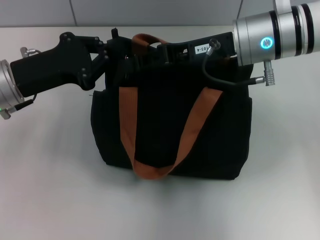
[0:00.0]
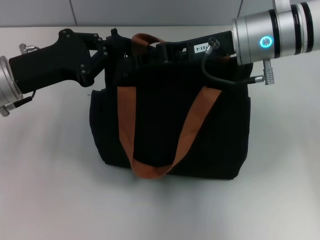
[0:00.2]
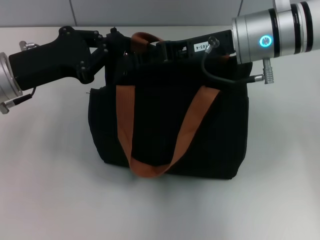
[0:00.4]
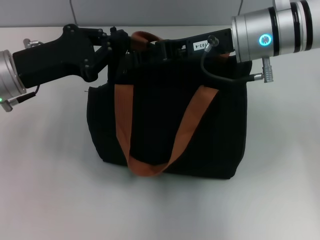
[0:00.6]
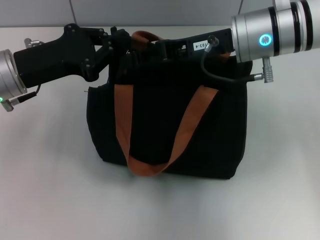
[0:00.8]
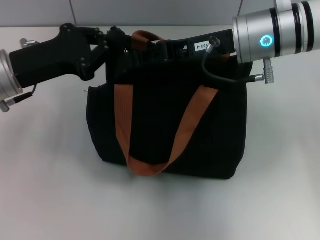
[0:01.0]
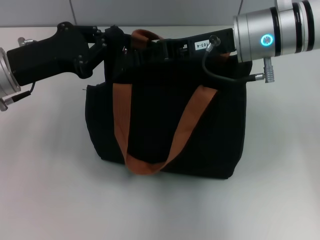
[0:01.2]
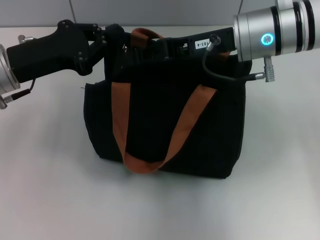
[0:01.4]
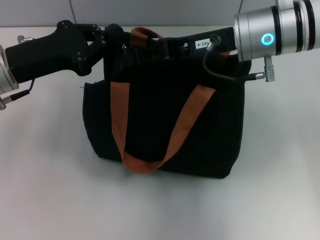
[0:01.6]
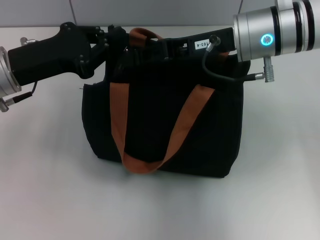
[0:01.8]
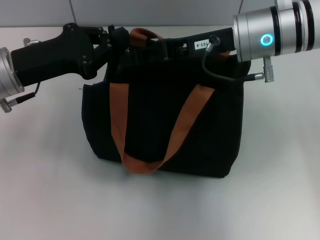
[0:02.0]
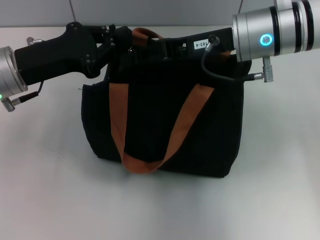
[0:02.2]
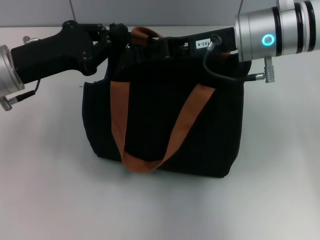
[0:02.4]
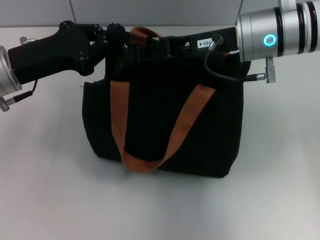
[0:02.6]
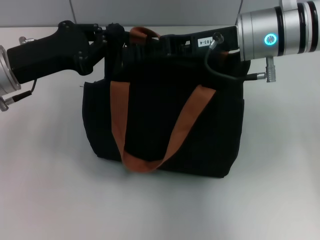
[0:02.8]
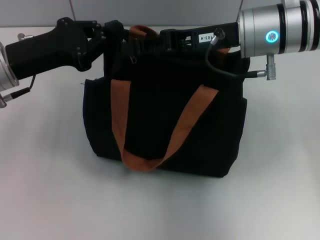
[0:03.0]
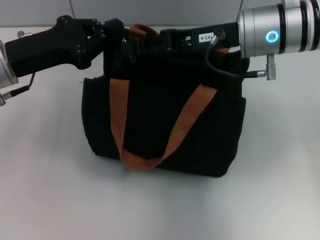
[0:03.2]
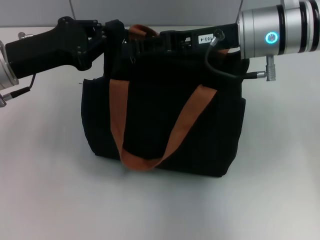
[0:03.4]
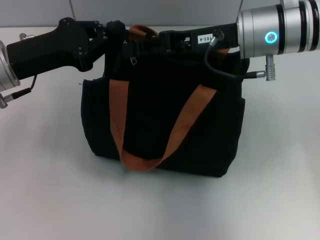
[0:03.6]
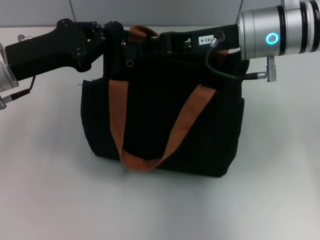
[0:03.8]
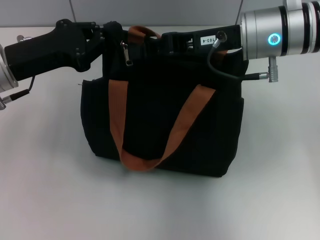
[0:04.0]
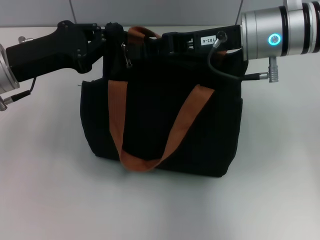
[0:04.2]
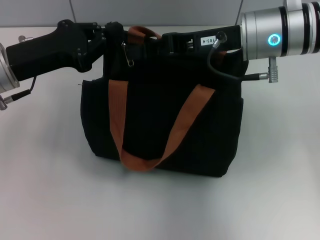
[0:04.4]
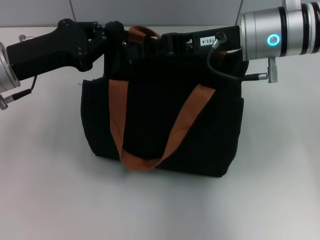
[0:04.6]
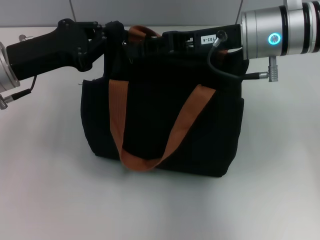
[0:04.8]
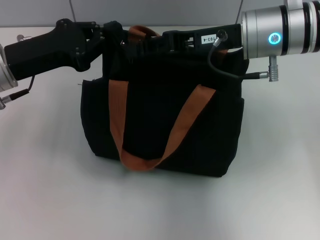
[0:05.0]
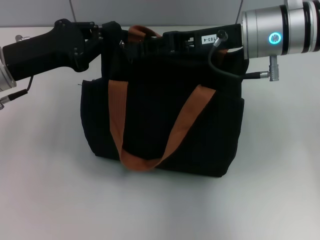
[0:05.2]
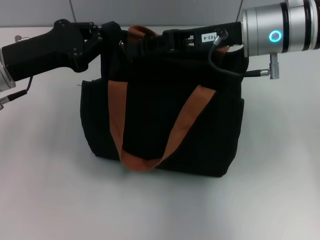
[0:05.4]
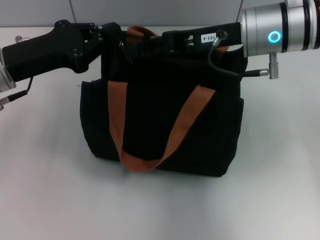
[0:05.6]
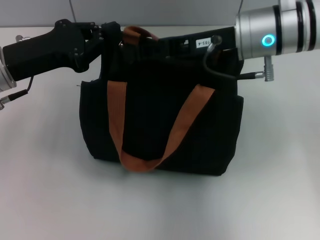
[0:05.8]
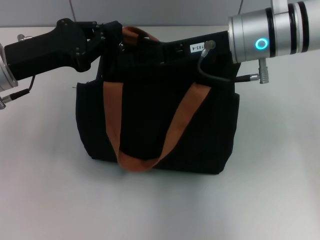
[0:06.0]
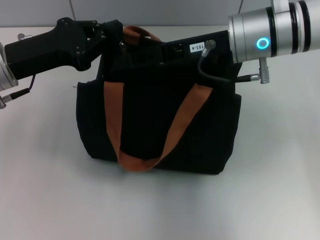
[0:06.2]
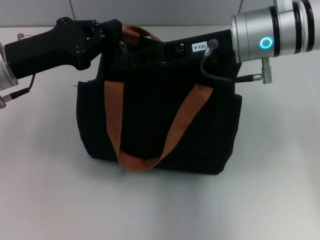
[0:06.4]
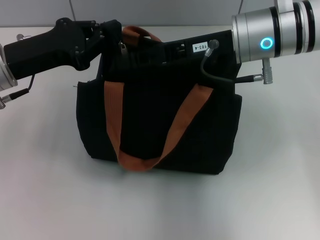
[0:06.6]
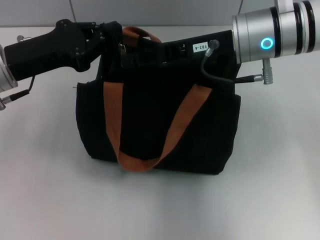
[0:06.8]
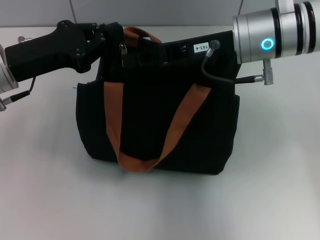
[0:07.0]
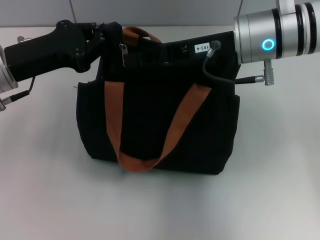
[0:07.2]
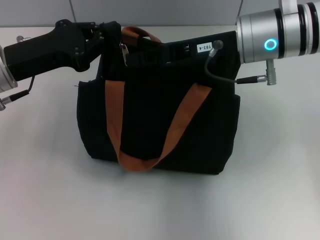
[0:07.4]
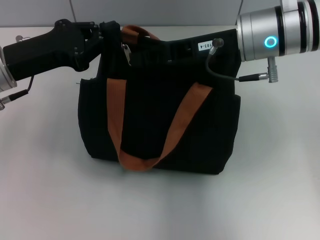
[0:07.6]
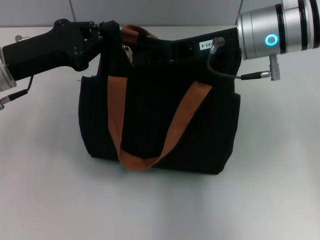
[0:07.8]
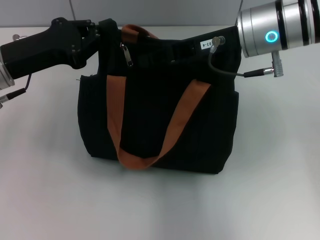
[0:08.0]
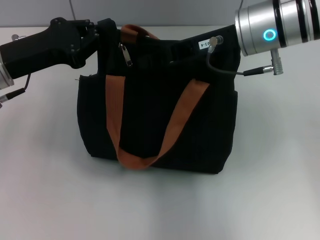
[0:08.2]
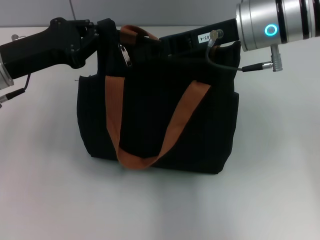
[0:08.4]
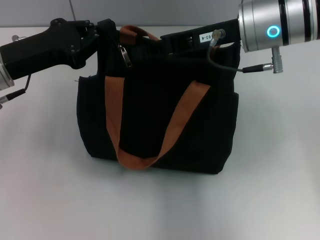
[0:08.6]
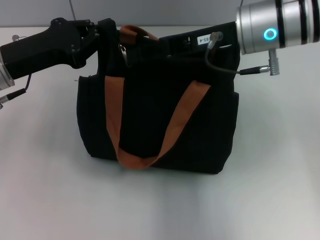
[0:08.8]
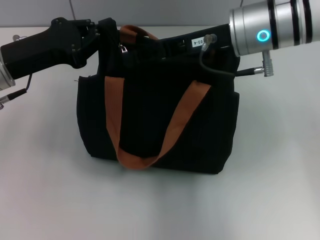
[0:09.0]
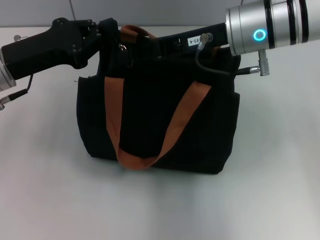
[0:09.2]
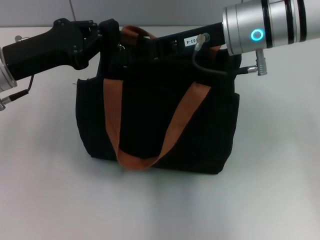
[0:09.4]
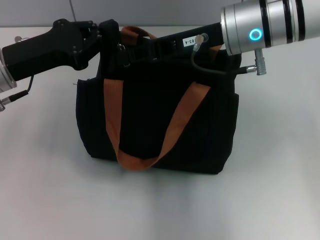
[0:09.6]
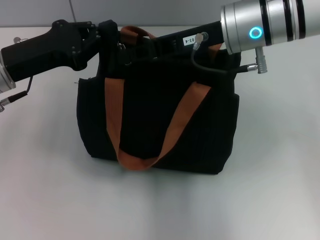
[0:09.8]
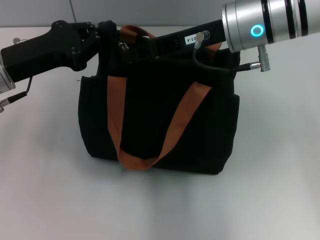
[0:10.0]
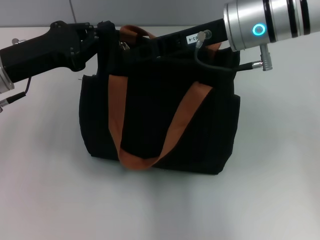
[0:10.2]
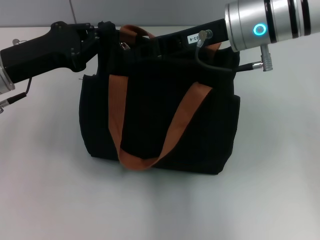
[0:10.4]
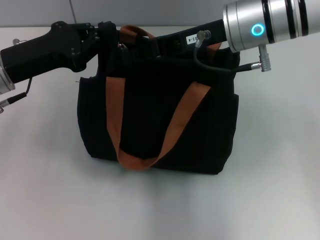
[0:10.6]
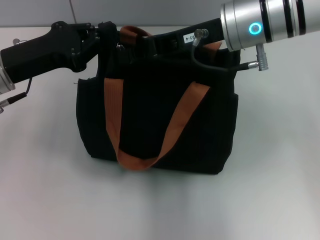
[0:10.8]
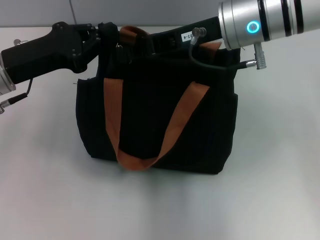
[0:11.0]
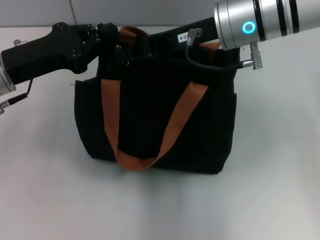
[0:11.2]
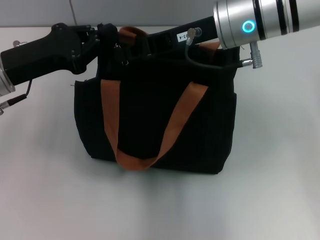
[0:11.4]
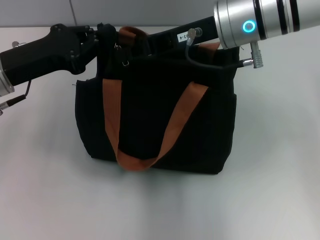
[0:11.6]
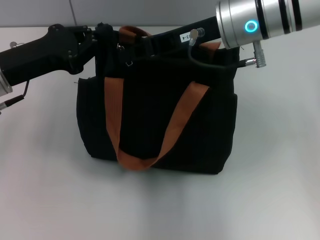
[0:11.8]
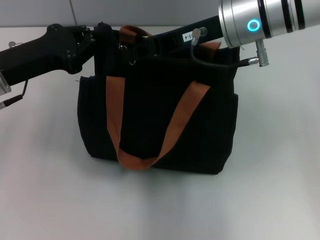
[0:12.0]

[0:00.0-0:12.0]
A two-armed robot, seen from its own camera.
0.0 to 1.6 s: The grippers move only a little.
1.6 to 4.4 s: The two grippers keep their place.
4.4 to 6.0 s: There are only small adjustments of the grippers.
6.0 to 7.6 s: Both grippers stay about where they are.
7.6 to 10.4 s: The grippers stay close to where they were, moving slightly.
10.4 to 12.0 s: Both grippers stay put.

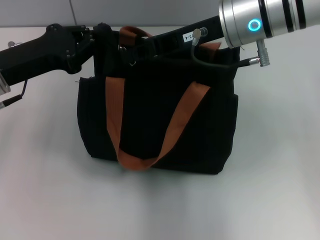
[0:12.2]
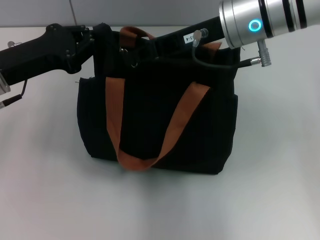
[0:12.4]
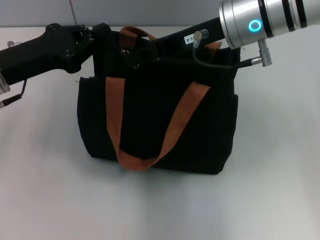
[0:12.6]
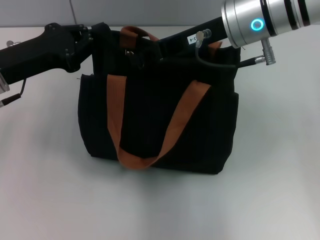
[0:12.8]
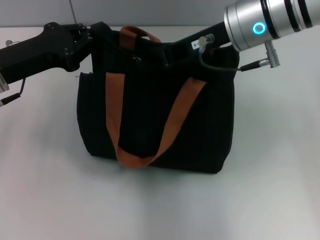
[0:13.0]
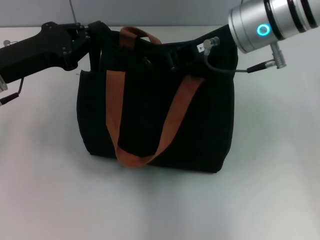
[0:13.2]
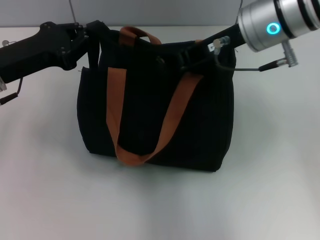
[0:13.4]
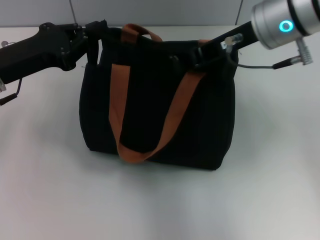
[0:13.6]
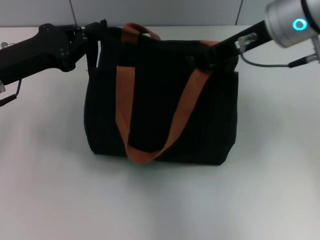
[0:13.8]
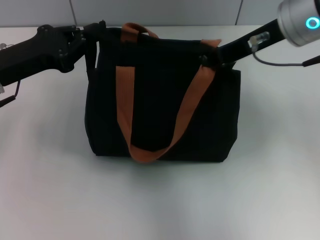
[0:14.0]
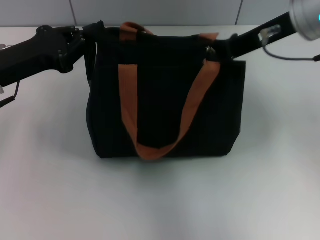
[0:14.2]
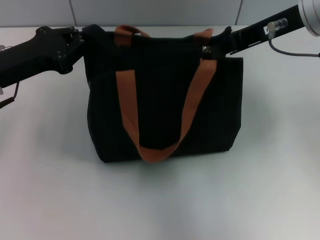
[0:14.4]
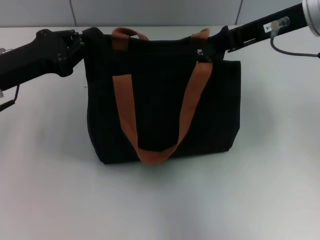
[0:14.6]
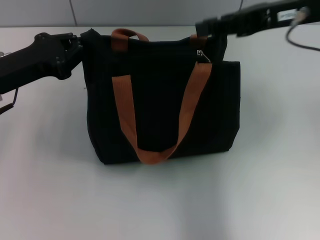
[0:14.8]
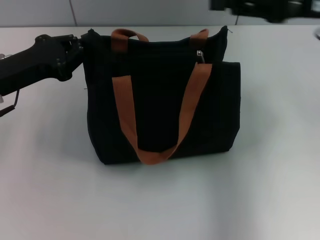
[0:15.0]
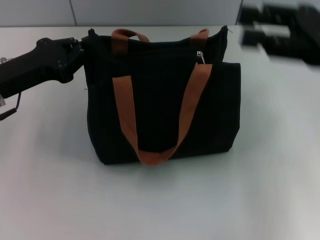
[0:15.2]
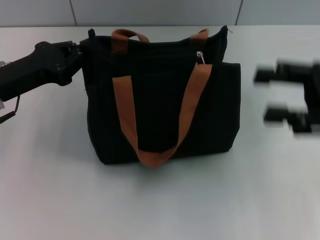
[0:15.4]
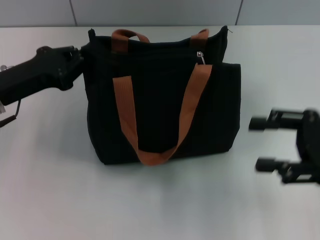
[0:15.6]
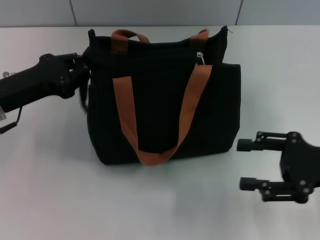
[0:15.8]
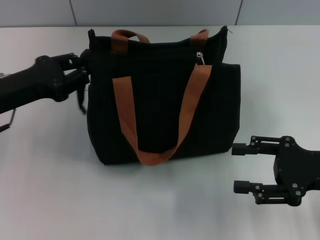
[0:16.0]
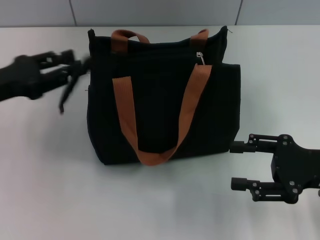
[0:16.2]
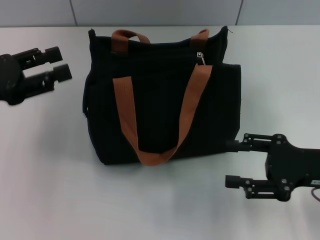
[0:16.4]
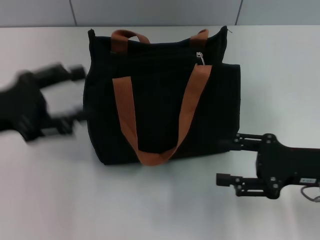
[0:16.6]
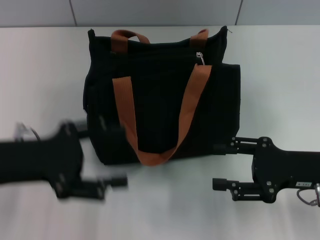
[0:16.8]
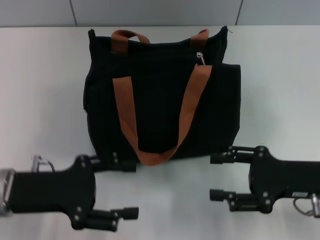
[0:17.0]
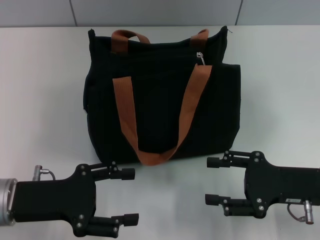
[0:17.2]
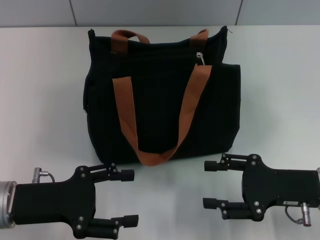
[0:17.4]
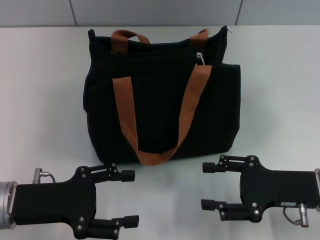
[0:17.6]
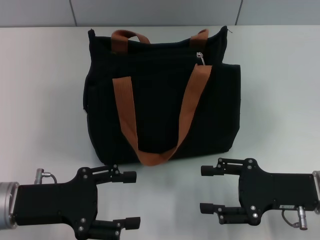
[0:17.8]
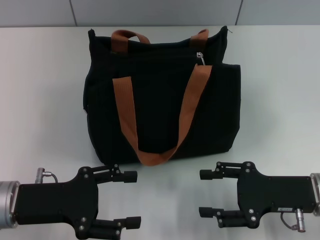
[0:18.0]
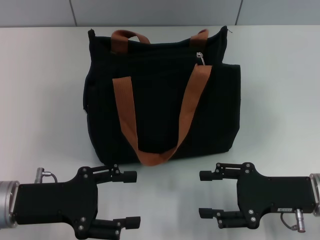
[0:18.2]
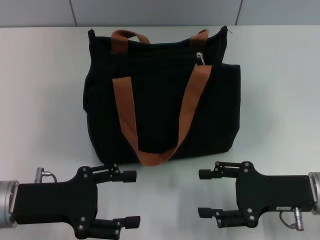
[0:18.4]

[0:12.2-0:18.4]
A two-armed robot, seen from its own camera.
Step, 12.2 to 14.6 s: Pull up the zipper with your right hand.
Step, 14.8 to 16.2 s: Grab the zipper with your left hand.
12.2 to 13.8 s: The right gripper moves approximately 5 cm.
13.8 to 15.4 s: The right gripper is displaced to the right, backward and downward by roughly 20 cm, and opens its fingers.
15.4 to 16.8 s: The left gripper is displaced backward by roughly 5 cm, and opens. The right gripper is displaced downward by approximately 10 cm.
16.8 to 18.4 s: The left gripper moves approximately 5 cm.

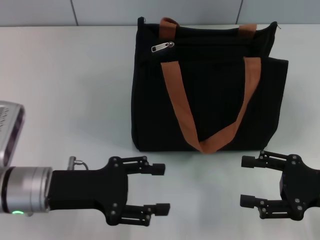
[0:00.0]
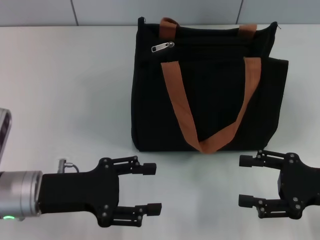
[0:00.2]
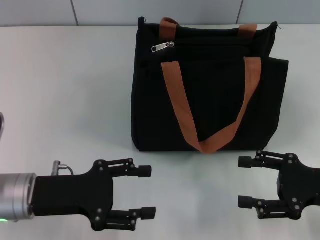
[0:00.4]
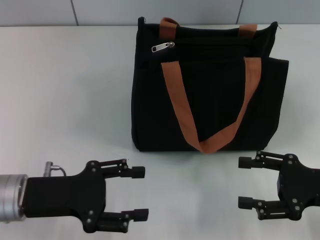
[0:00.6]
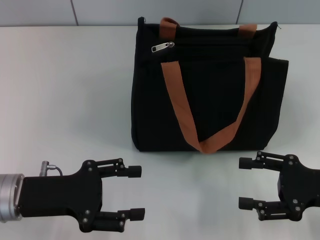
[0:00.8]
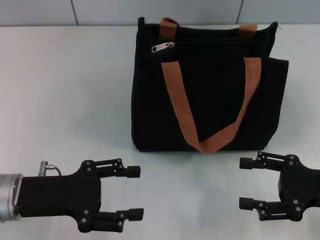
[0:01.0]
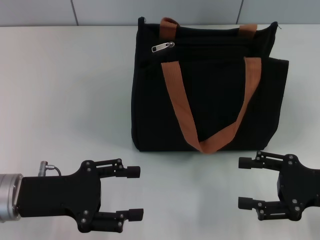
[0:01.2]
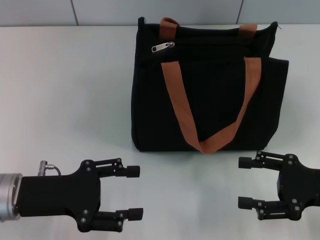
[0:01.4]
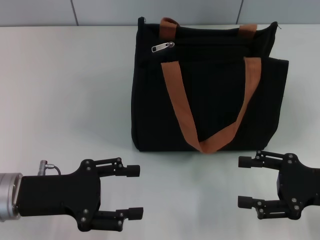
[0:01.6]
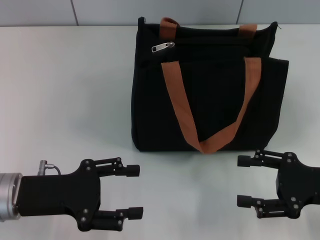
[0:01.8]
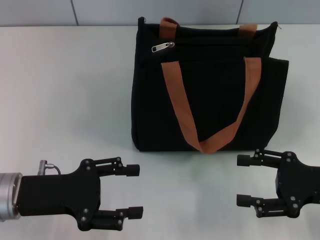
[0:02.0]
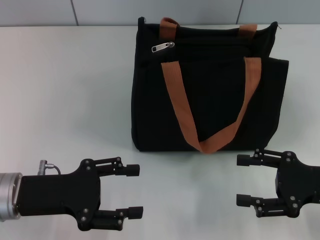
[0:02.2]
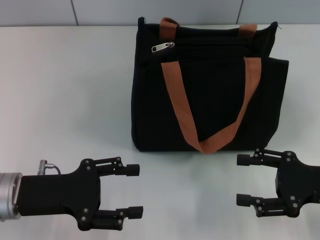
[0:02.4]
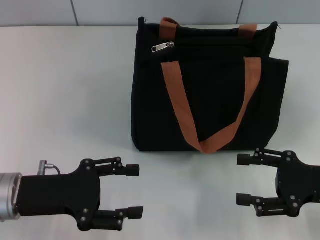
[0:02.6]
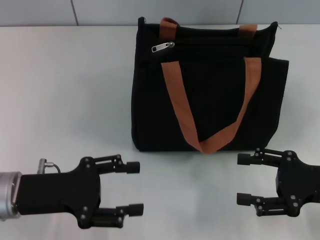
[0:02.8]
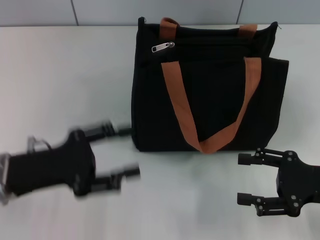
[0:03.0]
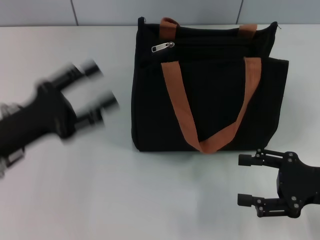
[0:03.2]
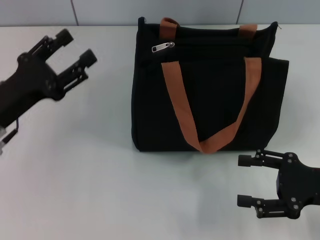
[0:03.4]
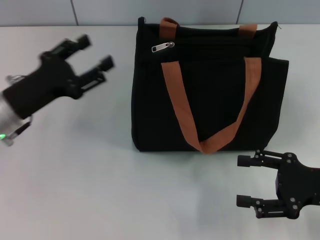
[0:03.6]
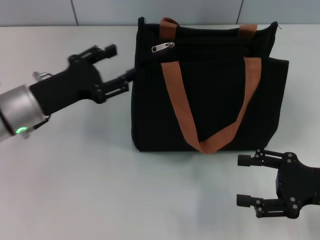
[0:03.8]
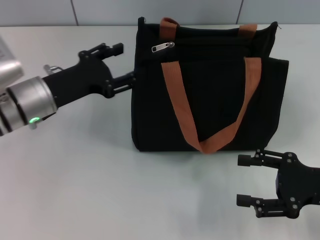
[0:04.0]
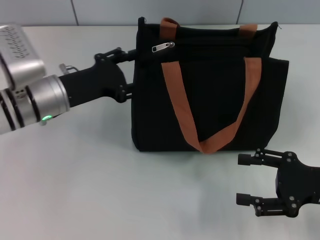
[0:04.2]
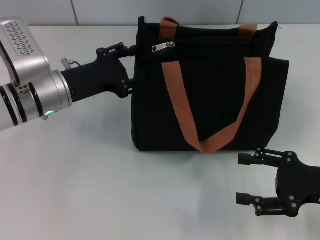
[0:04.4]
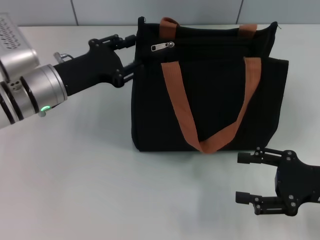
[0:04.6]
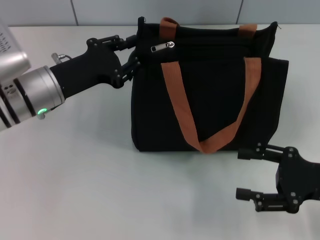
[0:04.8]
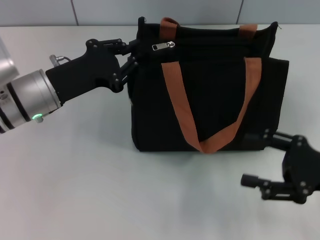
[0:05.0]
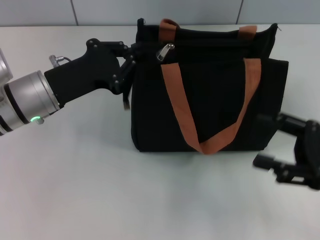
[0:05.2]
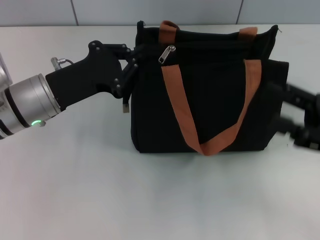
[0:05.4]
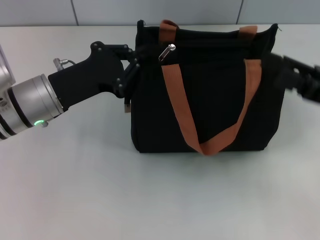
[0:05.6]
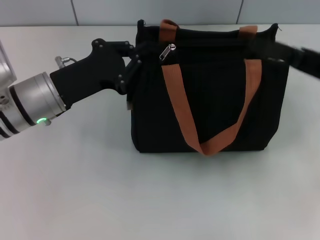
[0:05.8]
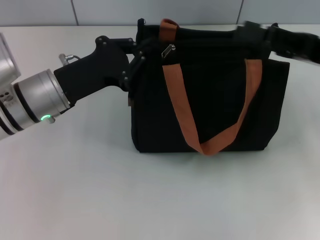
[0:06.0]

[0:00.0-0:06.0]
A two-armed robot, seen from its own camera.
0.0 to 3.0 s: The grippers move only a little.
3.0 to 4.4 s: The left gripper heads forward, covering roughly 10 cm.
4.4 to 6.0 s: The right gripper goes roughly 15 cm forward and upward. Meanwhile the left gripper closes its fingers.
